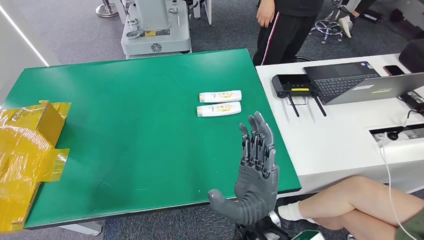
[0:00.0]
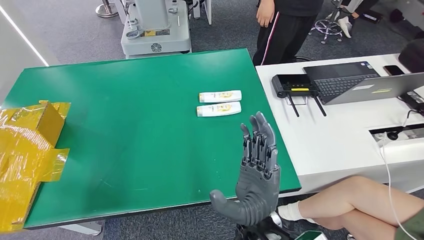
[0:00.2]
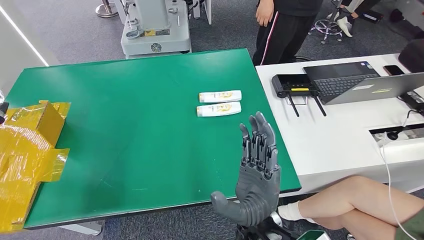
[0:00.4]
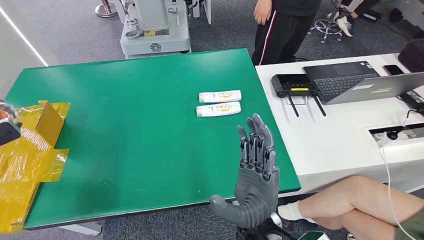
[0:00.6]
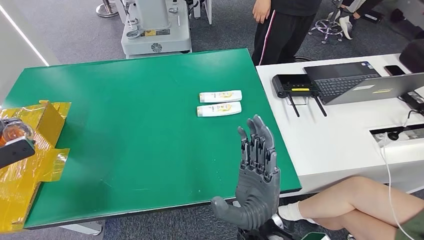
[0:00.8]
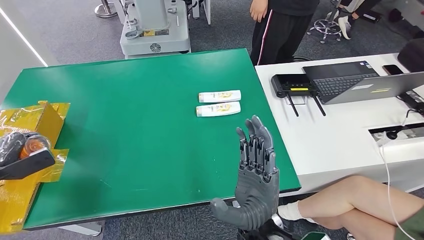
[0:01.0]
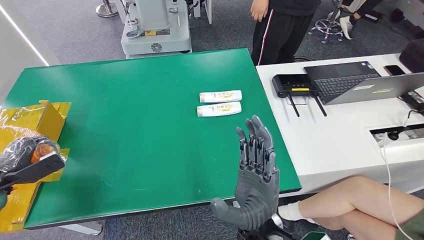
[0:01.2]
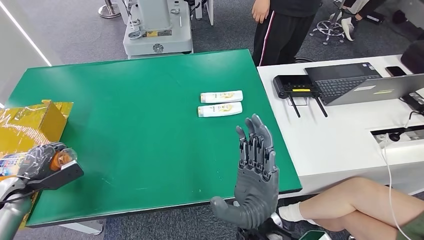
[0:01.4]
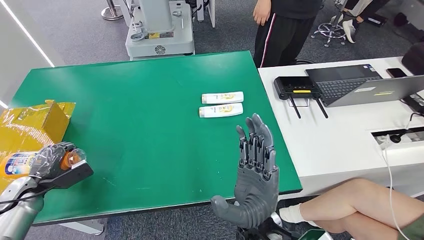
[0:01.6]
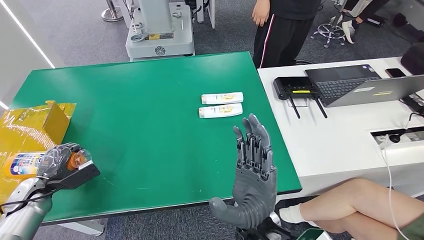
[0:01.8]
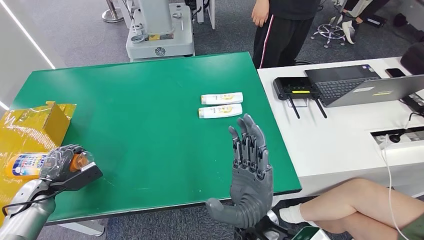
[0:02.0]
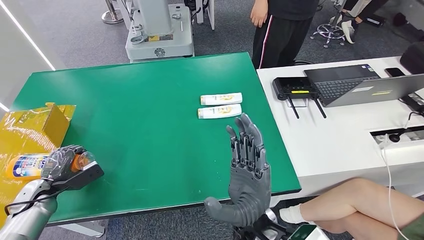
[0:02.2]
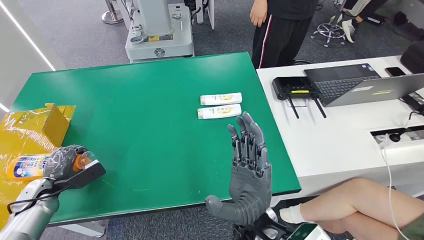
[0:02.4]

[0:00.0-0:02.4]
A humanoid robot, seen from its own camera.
Step, 0:00.0 to 0:02.4: Turn the bottle to the front side.
0:00.0 to 0:01.2: The left hand moves downward, some 15 cm.

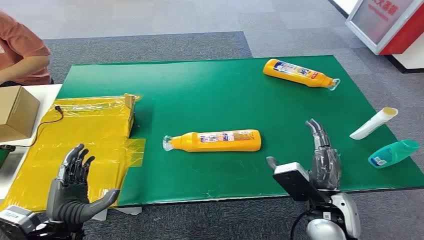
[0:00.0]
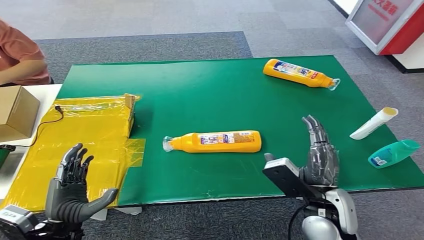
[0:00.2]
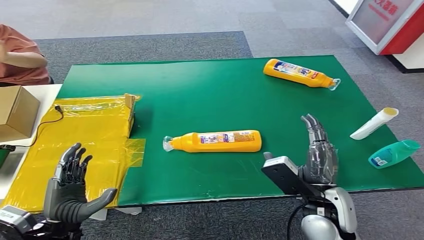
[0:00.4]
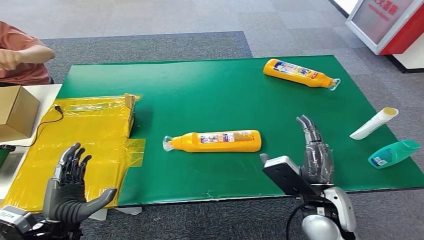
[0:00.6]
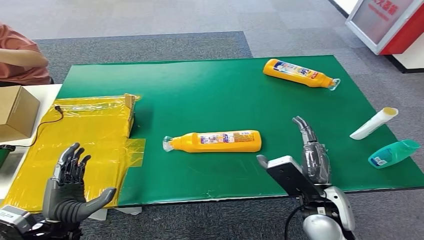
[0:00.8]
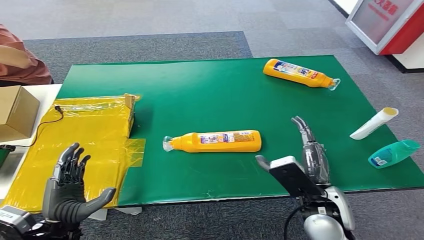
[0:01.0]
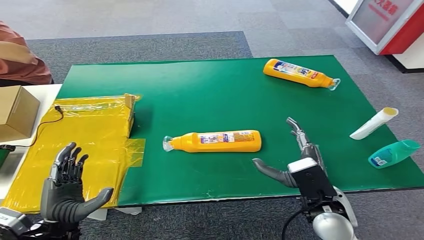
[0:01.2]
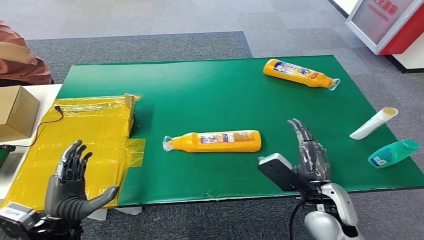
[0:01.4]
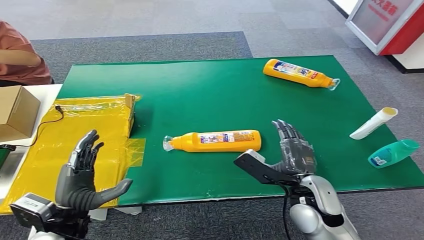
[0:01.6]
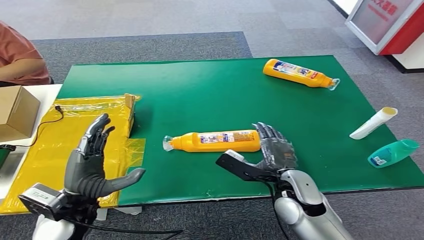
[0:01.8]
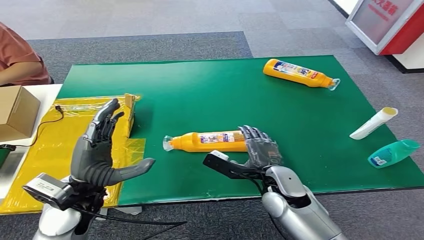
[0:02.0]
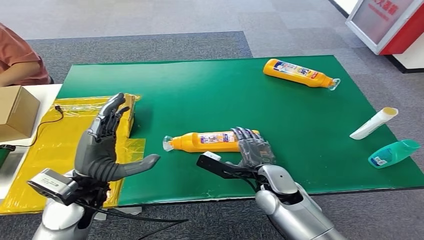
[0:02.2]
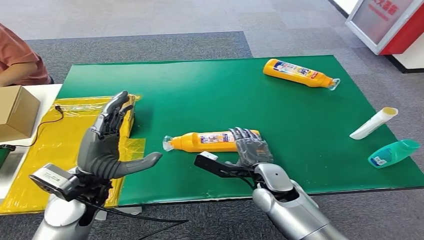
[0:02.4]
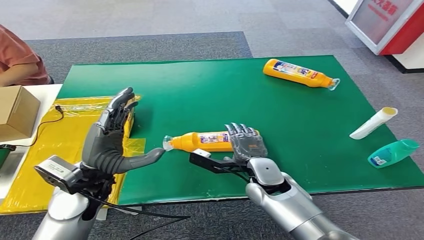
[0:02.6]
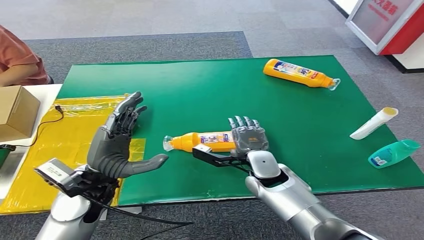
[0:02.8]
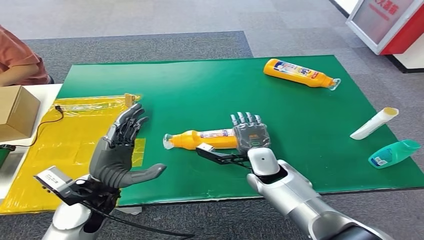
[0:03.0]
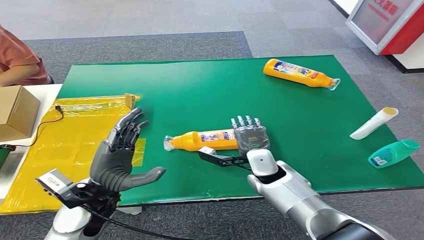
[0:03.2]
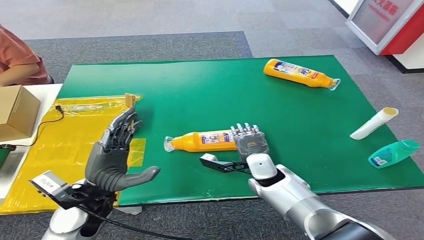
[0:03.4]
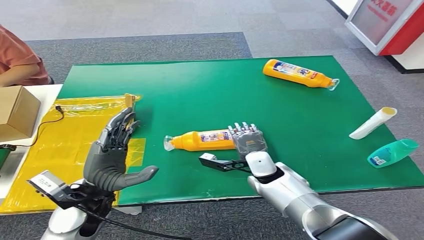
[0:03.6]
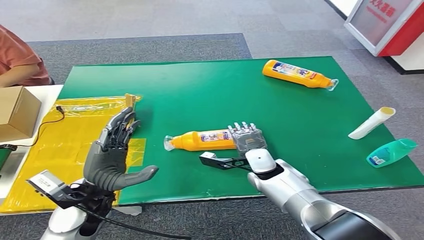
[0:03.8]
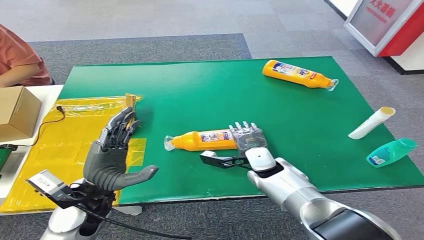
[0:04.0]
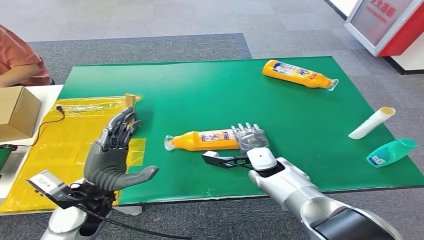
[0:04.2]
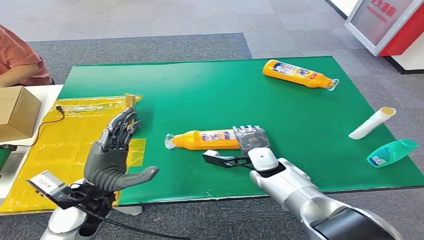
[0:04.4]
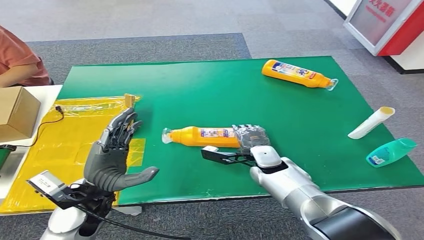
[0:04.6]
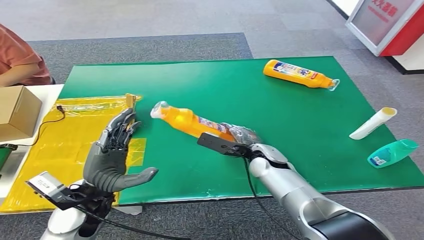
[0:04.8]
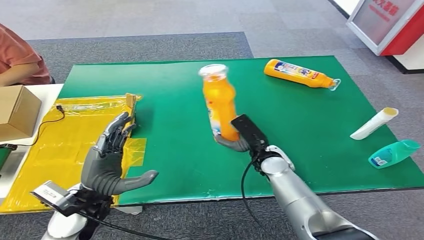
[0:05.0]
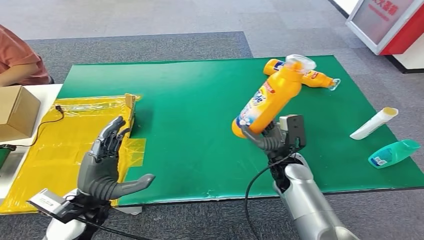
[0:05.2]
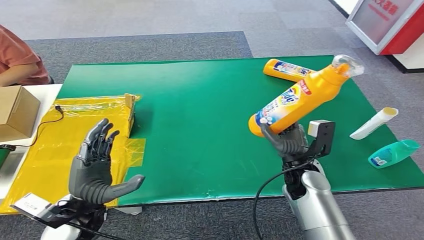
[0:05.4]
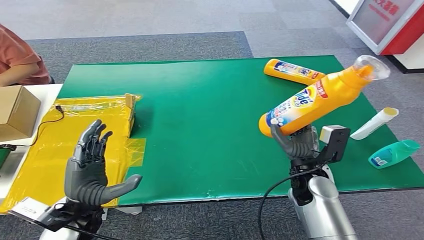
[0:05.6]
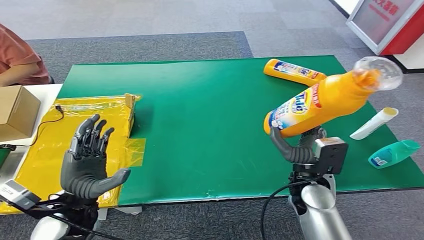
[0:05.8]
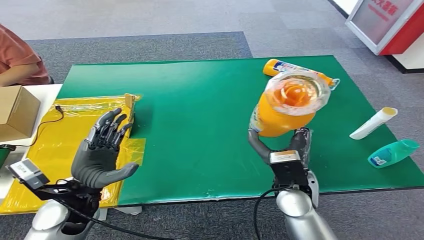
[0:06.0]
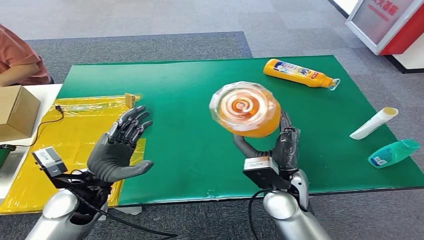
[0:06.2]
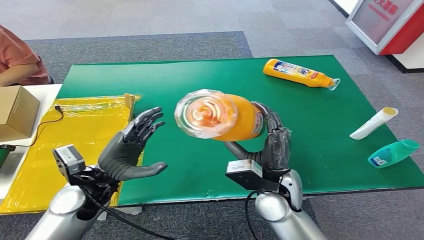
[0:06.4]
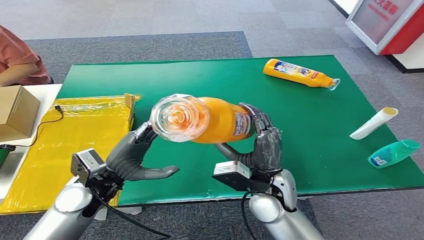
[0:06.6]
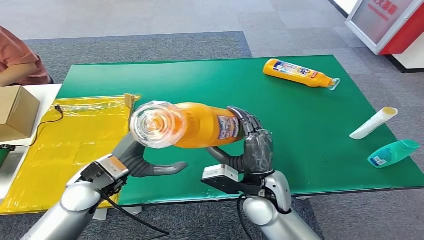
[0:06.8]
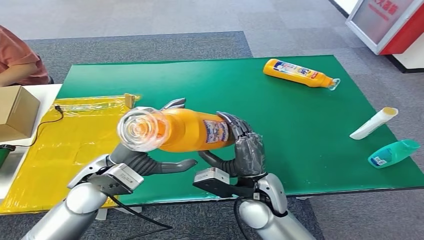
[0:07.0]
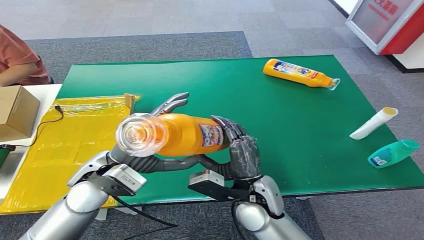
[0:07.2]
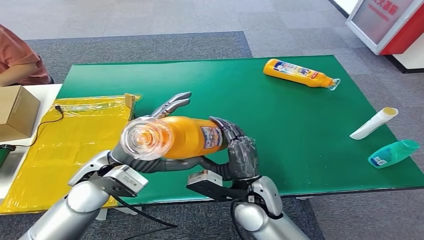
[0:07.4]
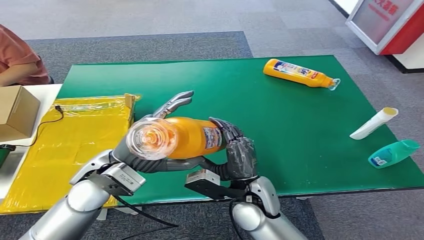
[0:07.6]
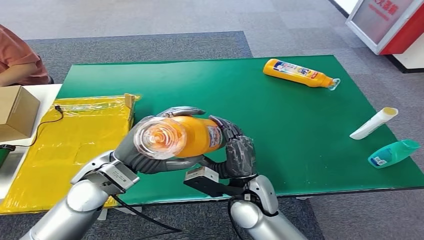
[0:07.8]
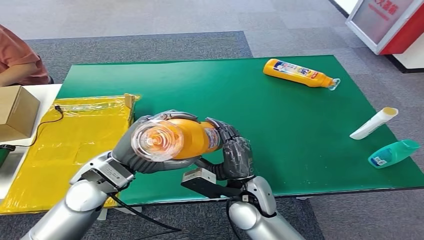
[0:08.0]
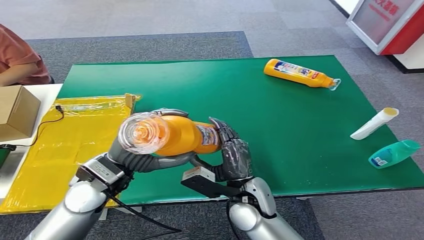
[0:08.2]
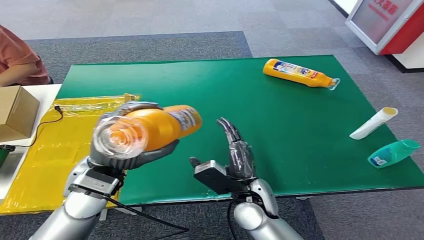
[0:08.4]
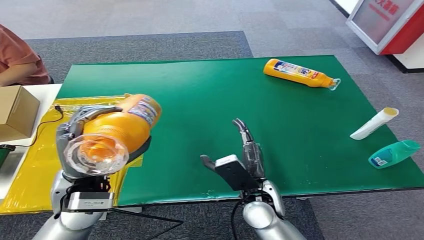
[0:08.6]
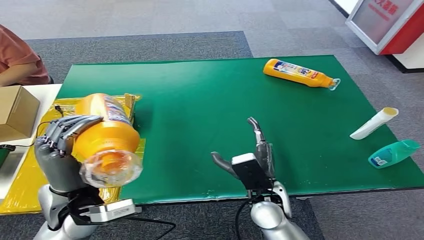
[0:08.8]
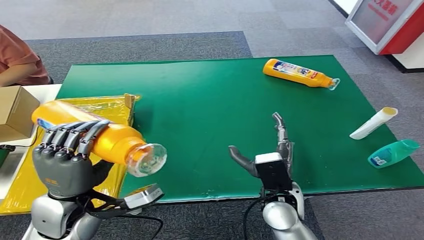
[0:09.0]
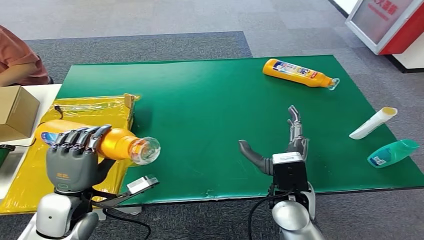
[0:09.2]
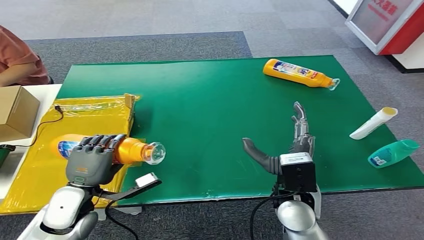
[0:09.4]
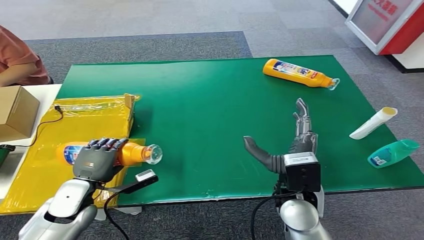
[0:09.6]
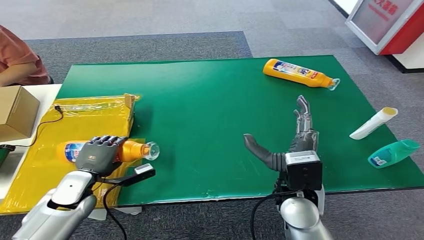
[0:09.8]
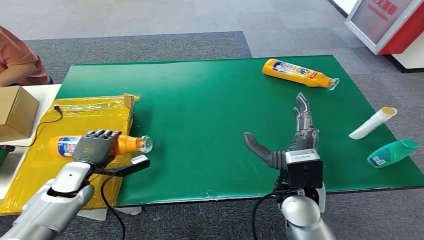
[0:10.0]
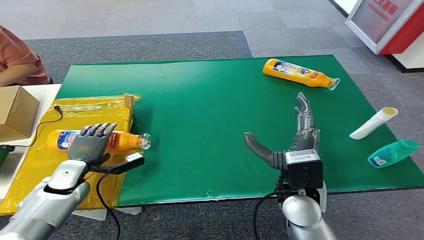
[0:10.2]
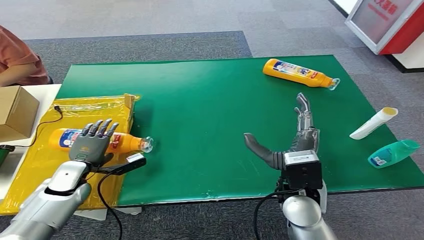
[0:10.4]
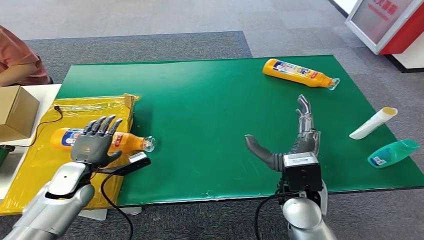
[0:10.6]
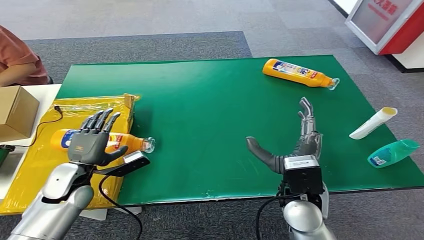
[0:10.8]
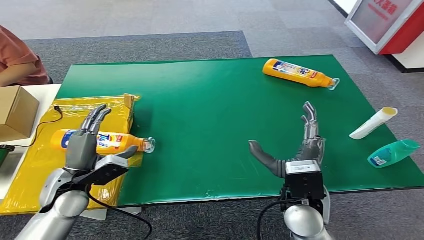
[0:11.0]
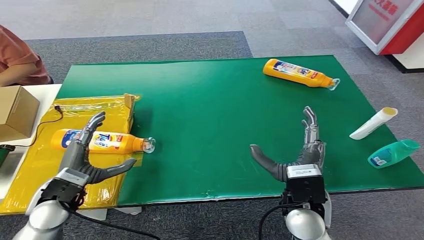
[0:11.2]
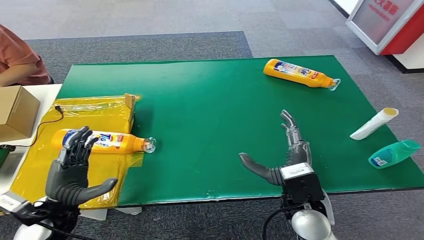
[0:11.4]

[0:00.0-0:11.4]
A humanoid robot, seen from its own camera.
Step, 0:00.0 to 0:05.4: Pick up the bottle from the table.
Step, 0:05.6 to 0:11.4: Turn the bottle to the front side.
0:01.4 to 0:02.8: The left hand shifts approximately 15 cm forward, upward and to the right; the right hand heads forward and to the left, covering approximately 15 cm.
0:10.0 to 0:11.4: The left hand is displaced backward by about 10 cm.

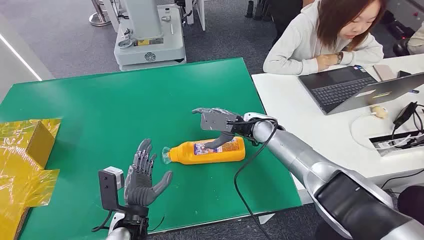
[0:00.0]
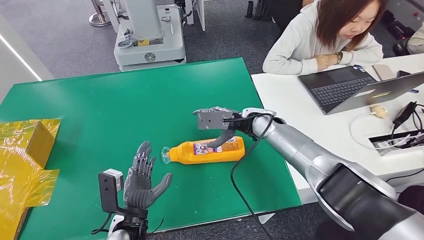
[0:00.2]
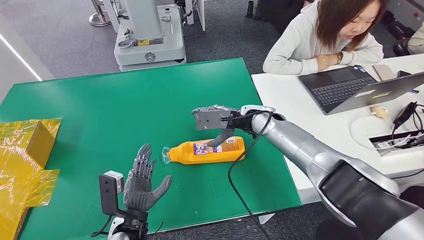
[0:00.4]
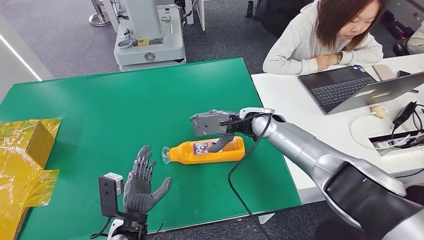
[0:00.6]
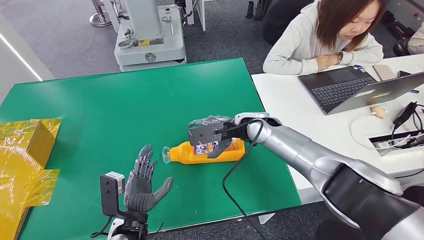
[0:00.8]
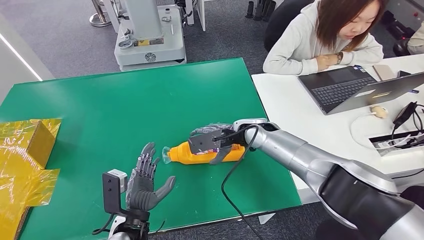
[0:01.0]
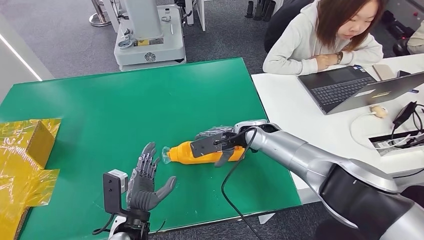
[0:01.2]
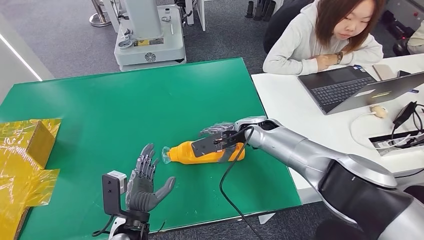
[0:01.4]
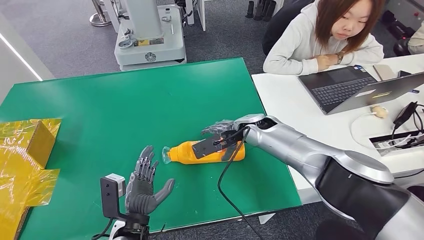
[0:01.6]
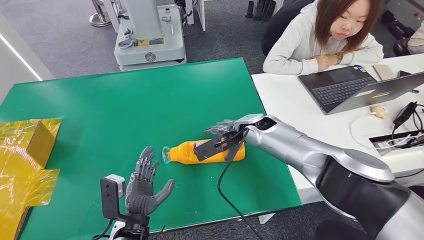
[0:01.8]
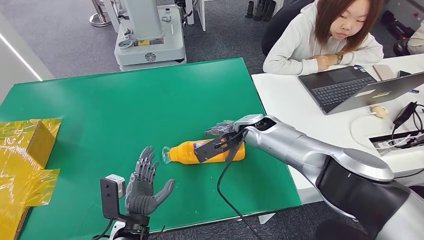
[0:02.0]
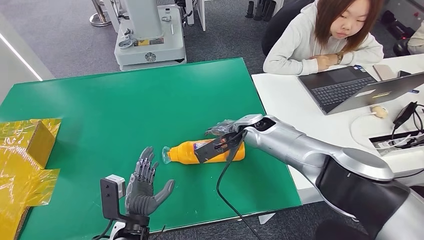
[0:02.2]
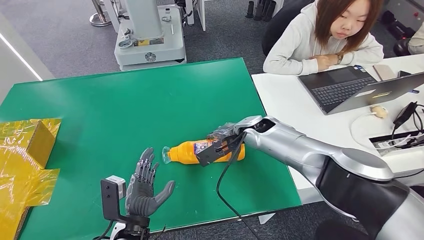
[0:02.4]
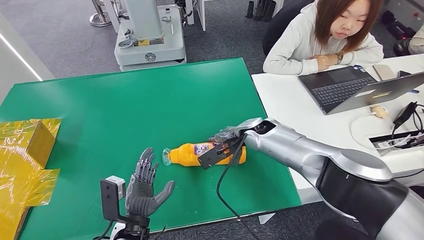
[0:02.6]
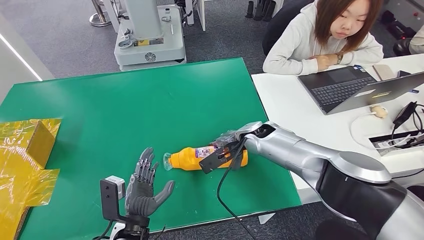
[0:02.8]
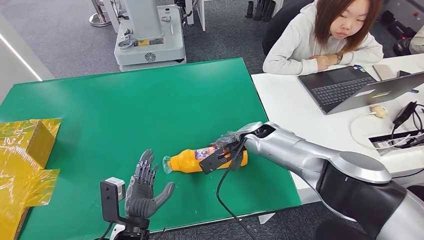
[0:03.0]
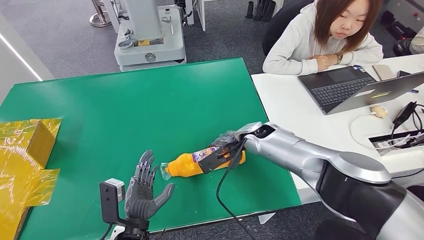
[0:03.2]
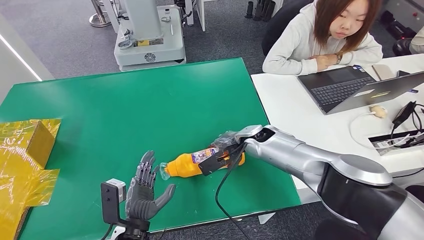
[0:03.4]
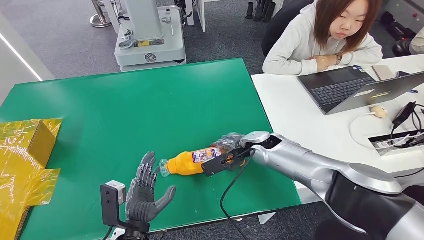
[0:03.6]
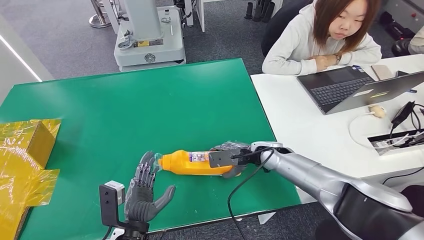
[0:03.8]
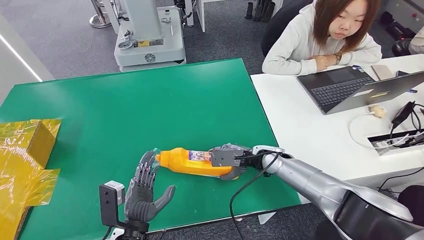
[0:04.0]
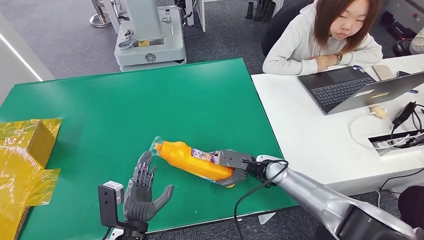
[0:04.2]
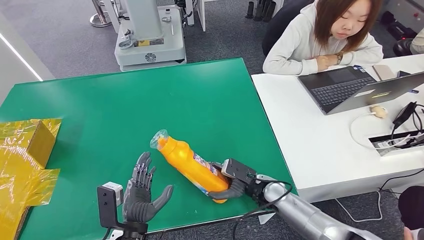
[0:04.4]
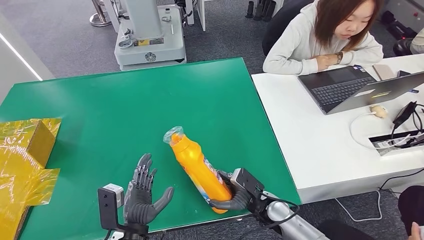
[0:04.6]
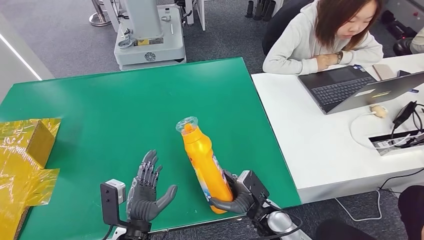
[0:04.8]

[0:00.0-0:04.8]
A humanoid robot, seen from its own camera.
0:01.6 to 0:03.2: The hands make only small movements.
0:03.2 to 0:04.8: The right hand heads backward and downward, covering roughly 25 cm.
